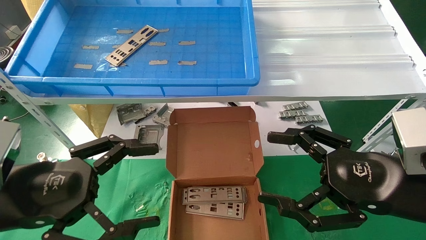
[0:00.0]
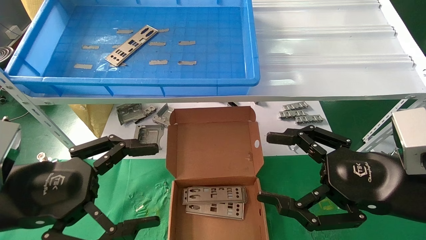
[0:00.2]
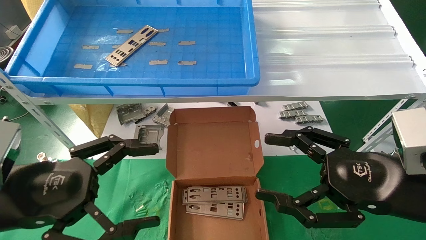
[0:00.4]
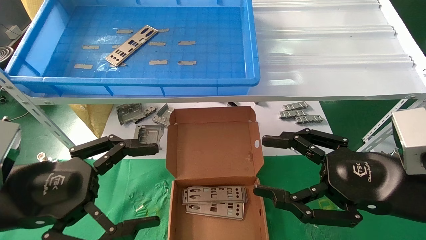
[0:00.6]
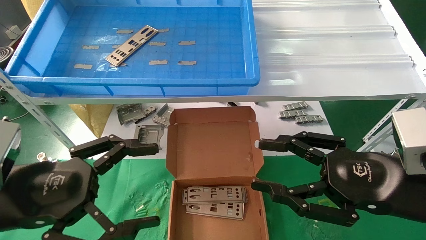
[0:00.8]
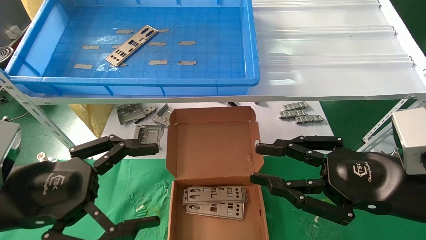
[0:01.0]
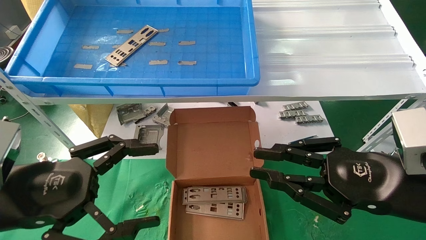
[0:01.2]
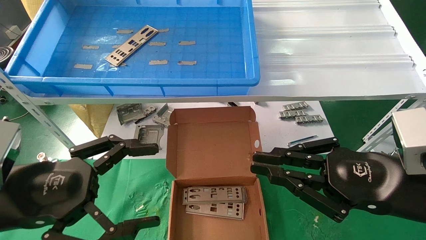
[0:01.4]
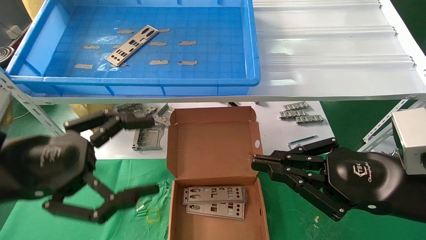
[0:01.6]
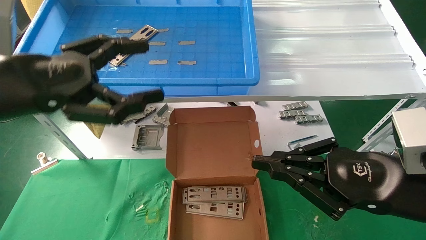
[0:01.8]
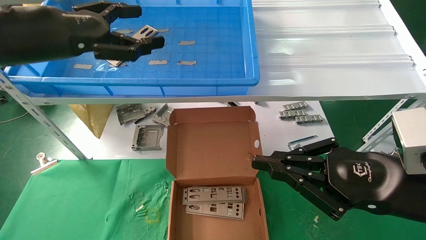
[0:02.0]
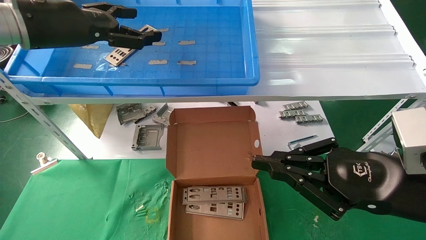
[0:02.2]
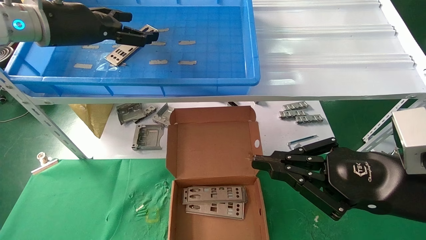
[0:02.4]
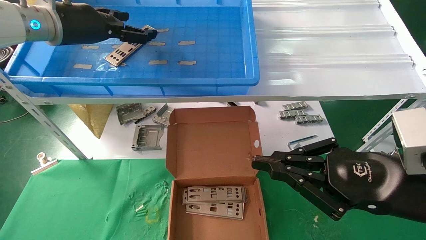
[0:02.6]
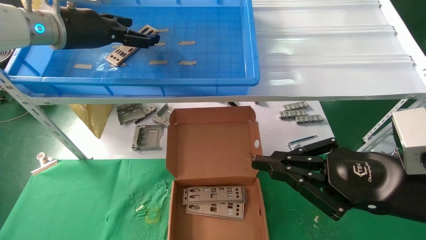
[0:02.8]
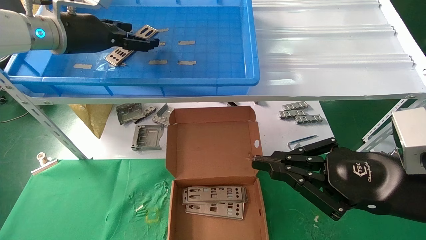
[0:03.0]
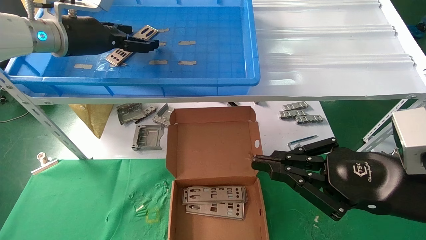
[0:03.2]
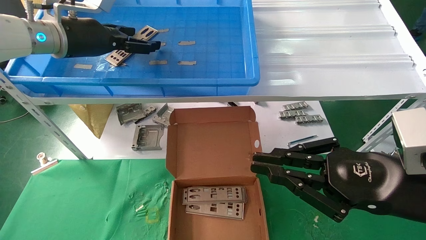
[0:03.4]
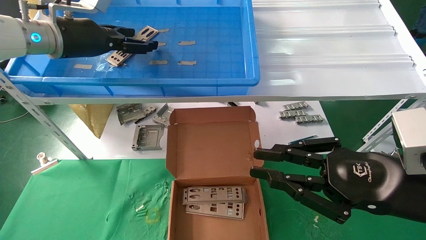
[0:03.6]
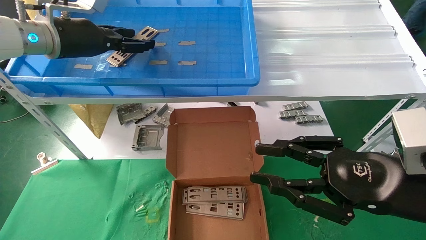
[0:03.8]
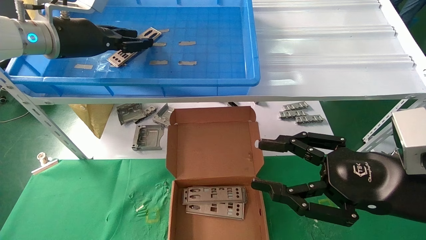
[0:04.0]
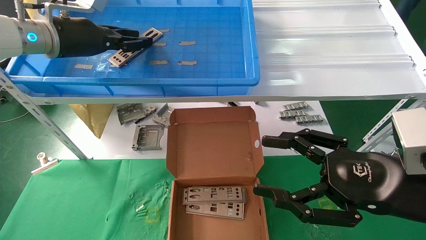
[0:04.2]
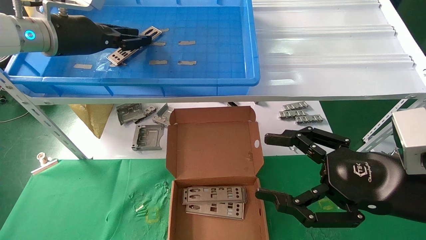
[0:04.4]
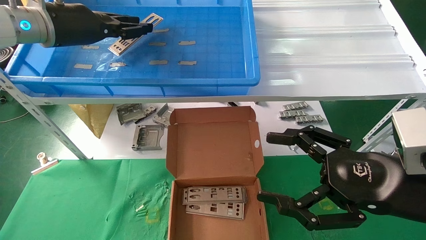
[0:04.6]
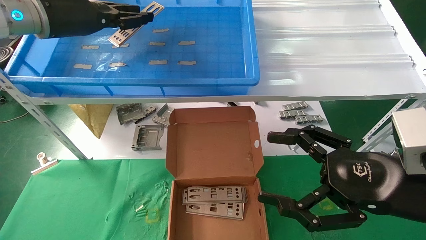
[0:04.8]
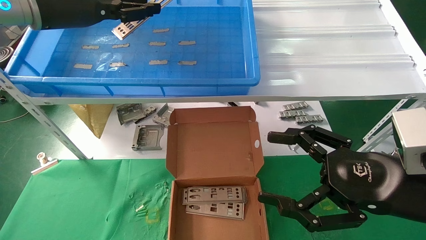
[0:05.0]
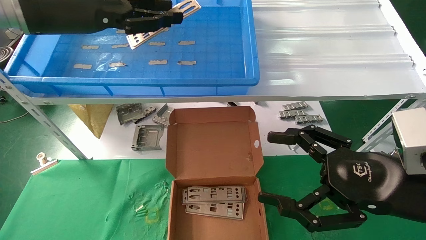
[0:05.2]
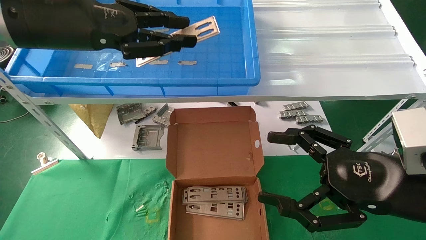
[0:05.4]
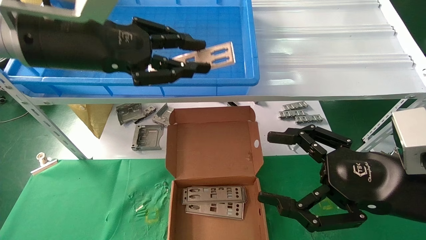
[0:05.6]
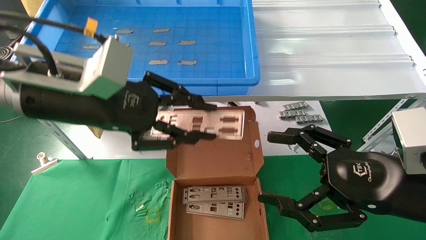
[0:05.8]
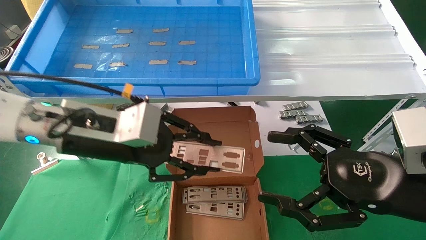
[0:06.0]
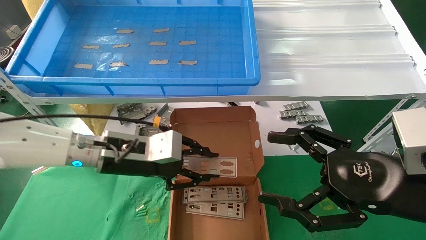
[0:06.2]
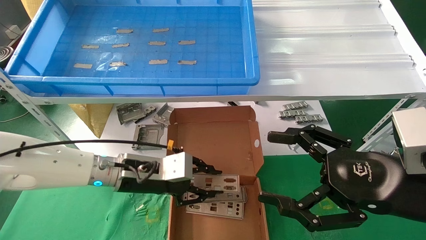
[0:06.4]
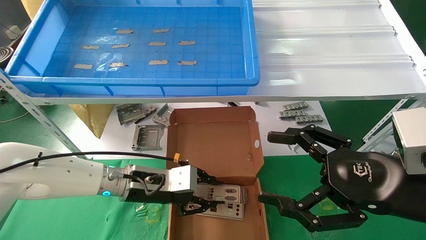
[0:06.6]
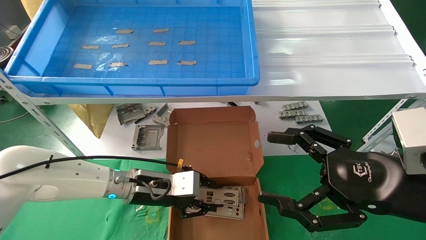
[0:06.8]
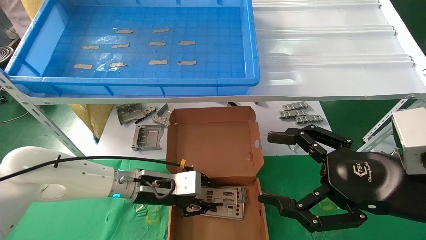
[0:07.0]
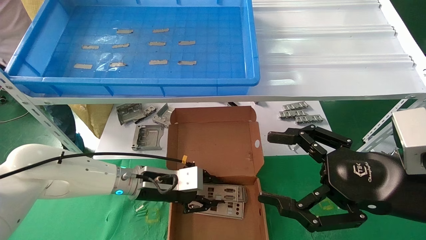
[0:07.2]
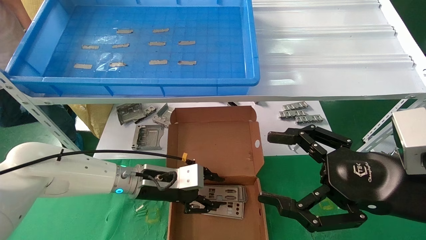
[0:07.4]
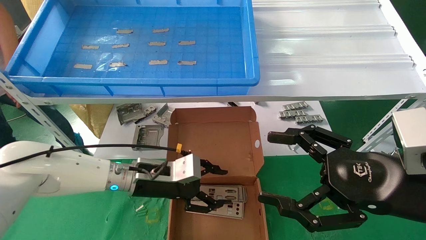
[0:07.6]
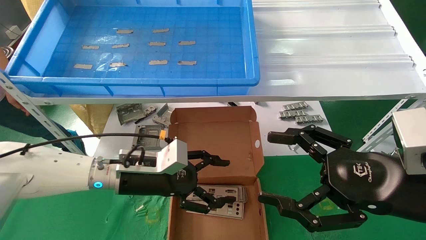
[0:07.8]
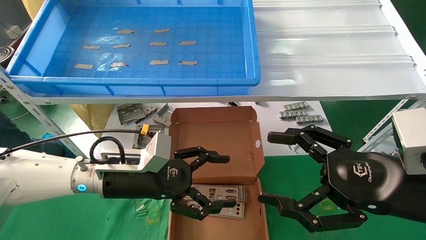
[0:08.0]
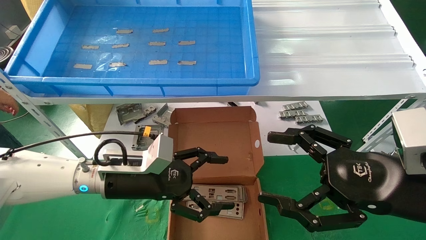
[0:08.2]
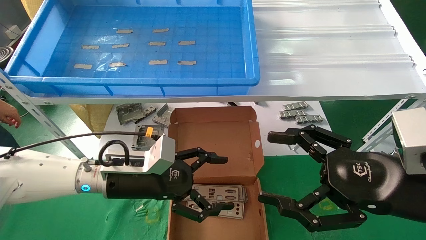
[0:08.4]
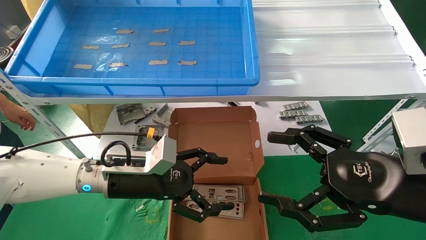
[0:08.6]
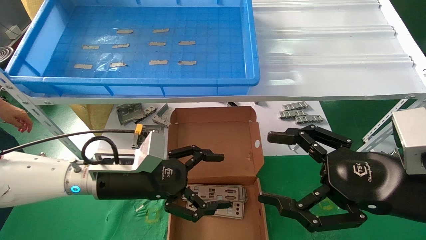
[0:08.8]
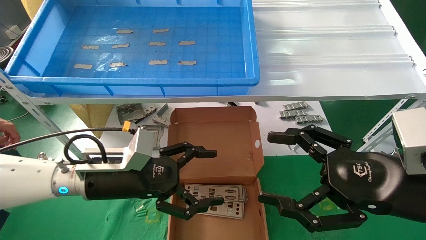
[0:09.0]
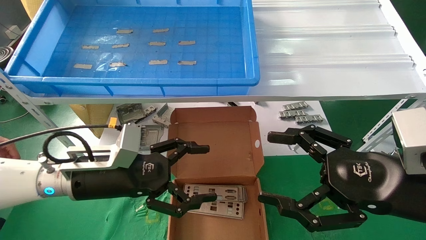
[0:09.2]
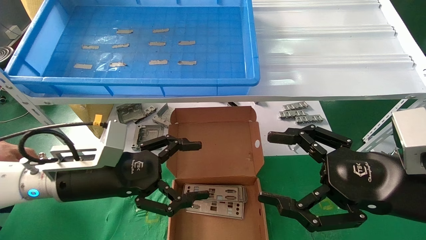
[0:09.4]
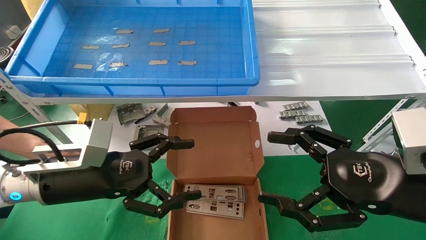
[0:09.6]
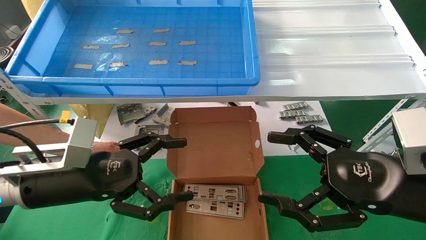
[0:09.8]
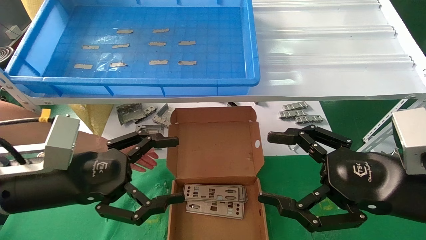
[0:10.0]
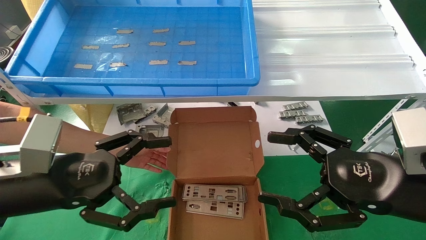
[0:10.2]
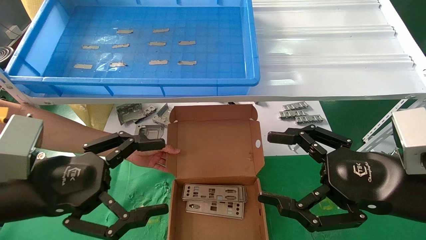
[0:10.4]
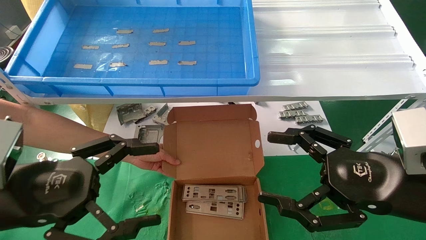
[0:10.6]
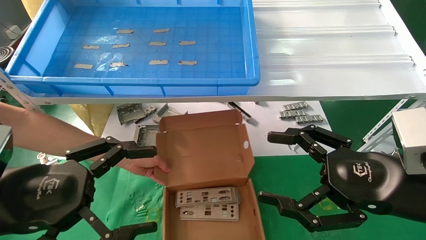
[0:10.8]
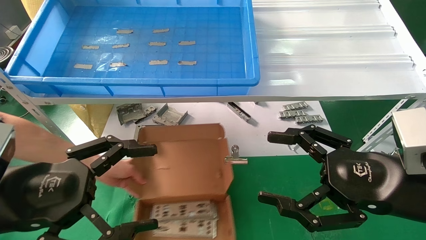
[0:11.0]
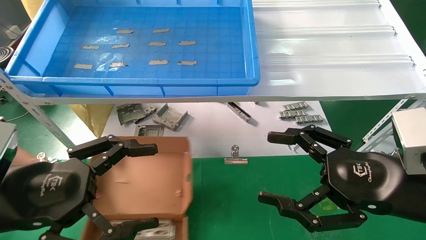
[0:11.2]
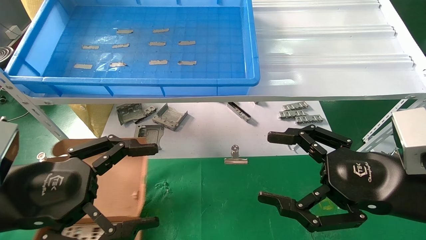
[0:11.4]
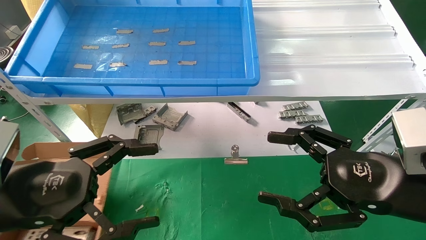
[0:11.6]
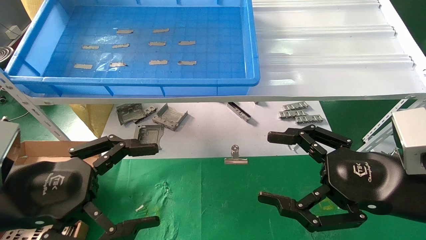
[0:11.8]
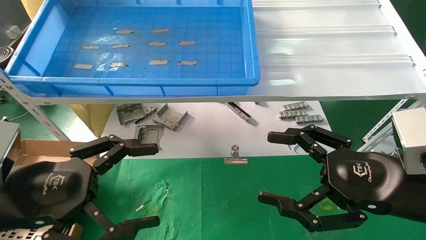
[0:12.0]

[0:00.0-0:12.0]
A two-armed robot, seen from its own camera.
Task of the whole recording: pick up the parts on the tray and put them in the cardboard box.
Step, 0:04.4 to 0:11.0: Pick up the IO bracket from the container box.
0:00.0 to 0:01.6: The right gripper closes, while the left gripper shifts about 5 cm upward.
0:01.6 to 0:03.0: The left gripper goes about 25 cm forward and upward.
0:03.0 to 0:04.4: The left gripper closes its fingers. The right gripper opens.
0:04.4 to 0:06.0: The left gripper goes roughly 20 cm downward, backward and to the right.
0:06.0 to 0:07.6: The left gripper goes approximately 15 cm downward and forward.
0:07.6 to 0:09.0: The left gripper travels backward by roughly 5 cm, and opens its fingers.
0:09.0 to 0:10.4: The left gripper goes about 15 cm backward and to the left.
0:10.4 to 0:12.0: There are only small adjustments of the grippers.

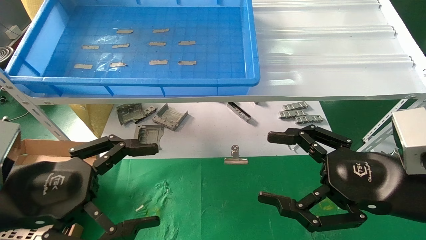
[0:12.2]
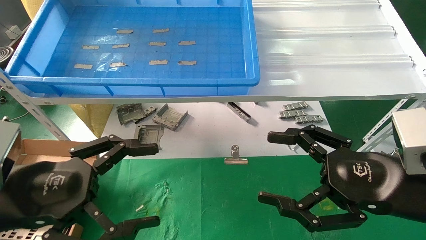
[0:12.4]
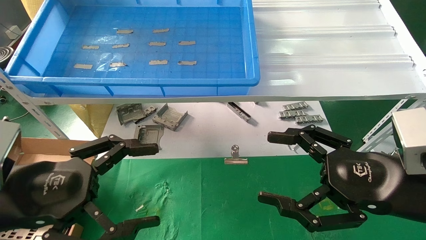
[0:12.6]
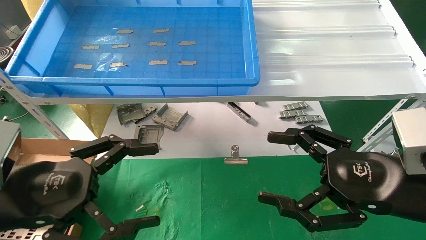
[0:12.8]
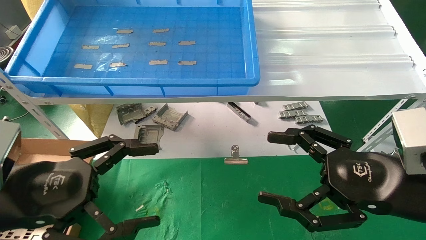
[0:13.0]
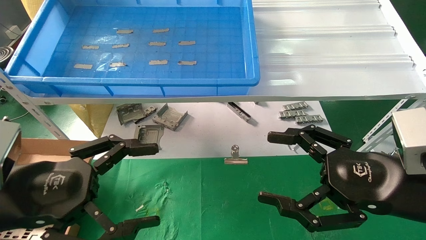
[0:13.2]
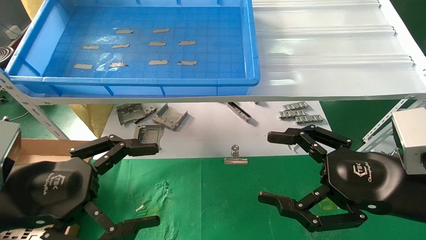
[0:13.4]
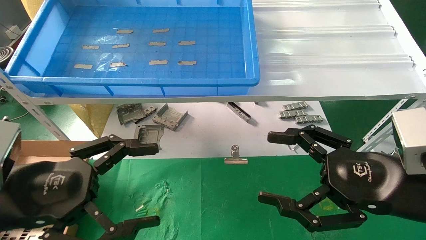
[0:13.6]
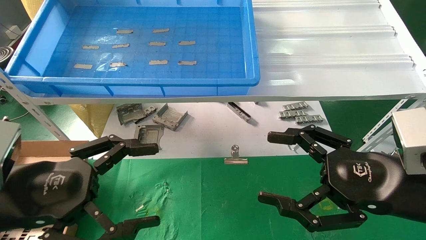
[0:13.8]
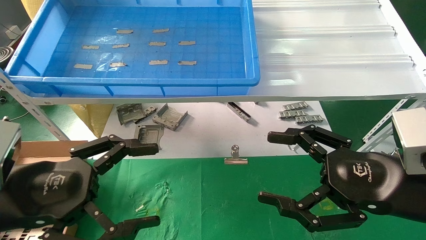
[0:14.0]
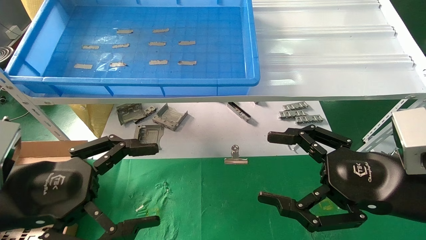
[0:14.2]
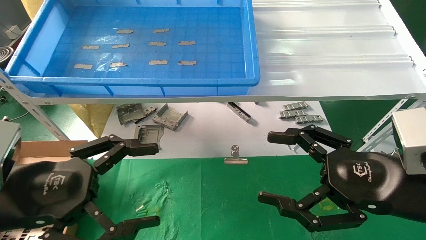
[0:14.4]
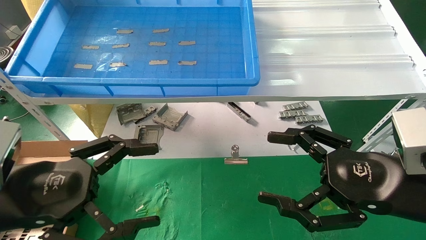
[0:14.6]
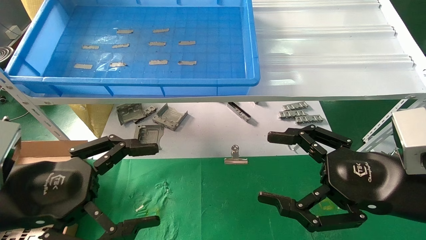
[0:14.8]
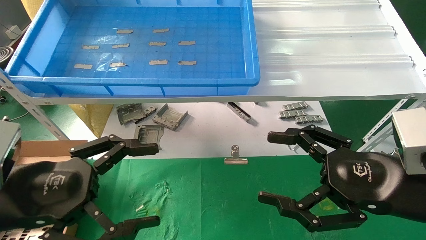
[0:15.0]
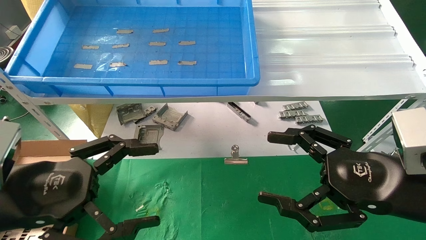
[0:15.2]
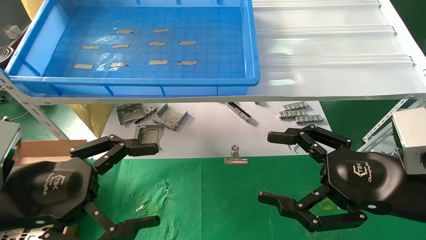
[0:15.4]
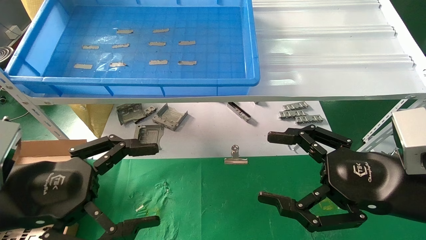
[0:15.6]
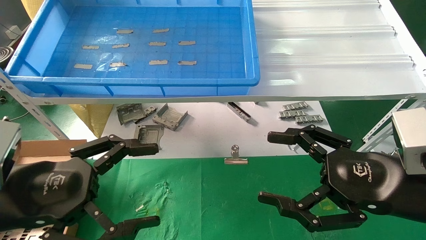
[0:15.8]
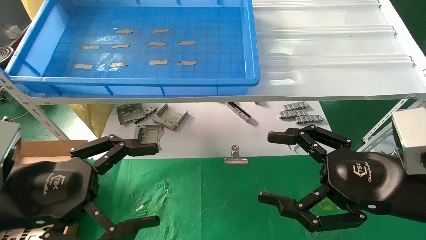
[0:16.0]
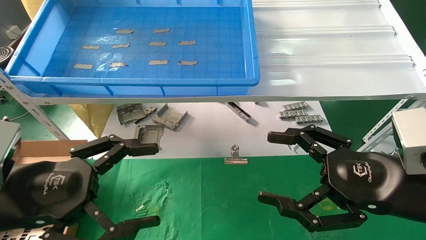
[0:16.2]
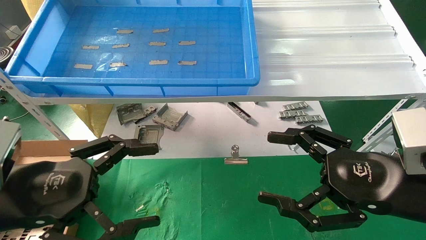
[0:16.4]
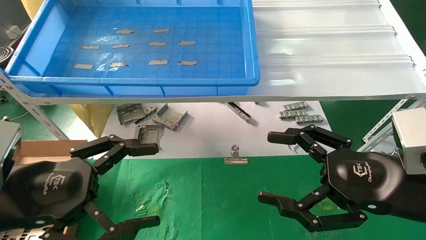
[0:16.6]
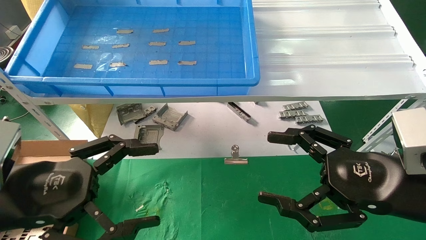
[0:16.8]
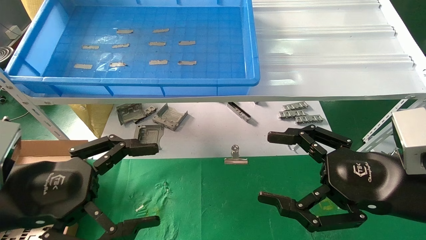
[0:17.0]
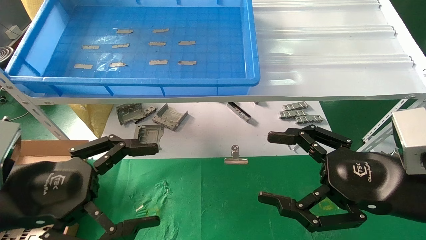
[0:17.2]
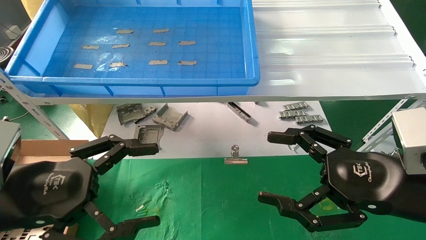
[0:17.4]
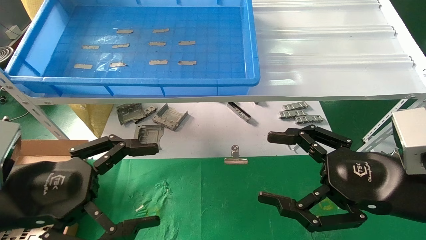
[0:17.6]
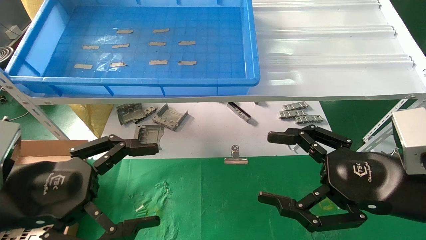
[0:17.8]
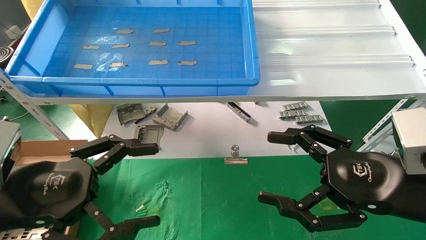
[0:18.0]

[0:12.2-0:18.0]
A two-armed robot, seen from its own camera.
Task of the whole recording: pick up the parts on the tray and put them in the cardboard box.
0:12.2 to 0:18.0: Neither gripper changes place.
